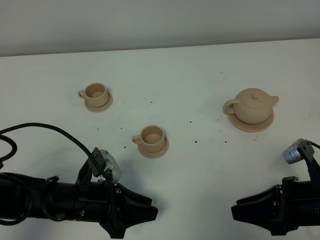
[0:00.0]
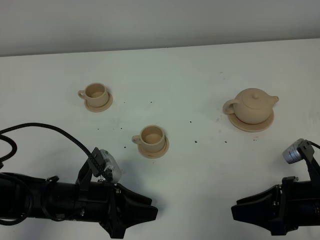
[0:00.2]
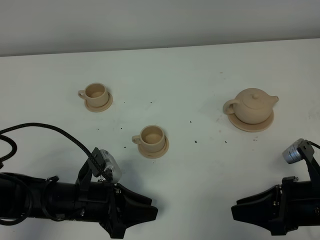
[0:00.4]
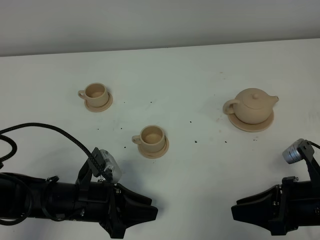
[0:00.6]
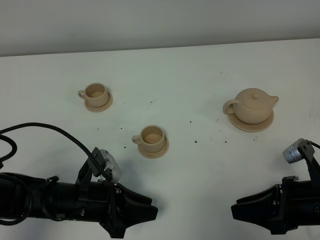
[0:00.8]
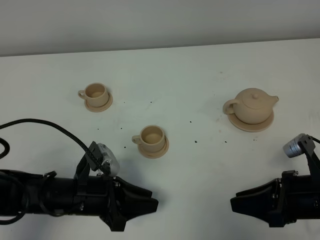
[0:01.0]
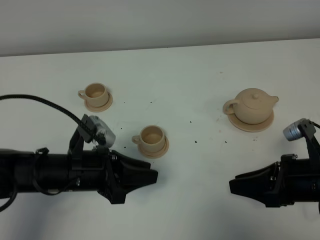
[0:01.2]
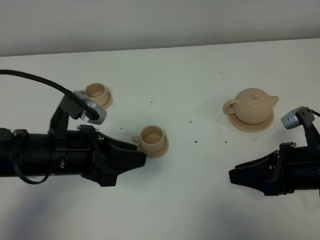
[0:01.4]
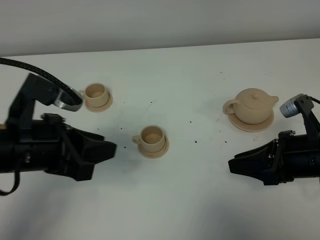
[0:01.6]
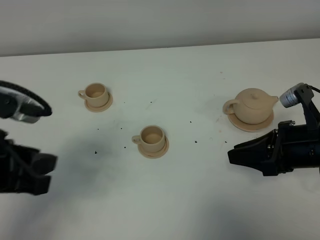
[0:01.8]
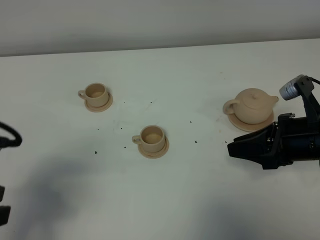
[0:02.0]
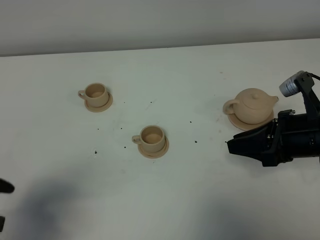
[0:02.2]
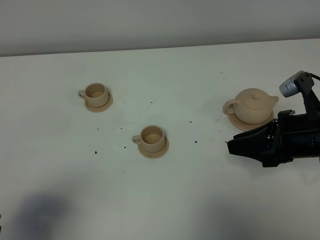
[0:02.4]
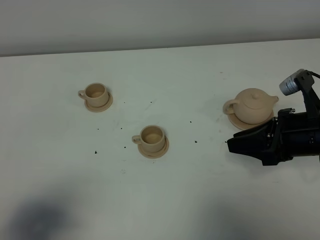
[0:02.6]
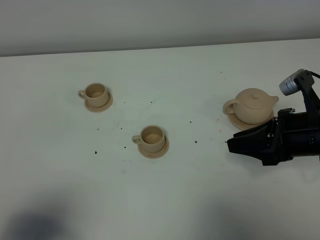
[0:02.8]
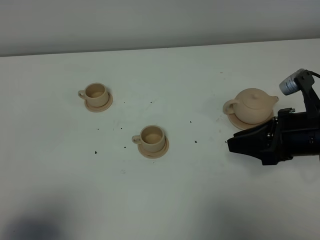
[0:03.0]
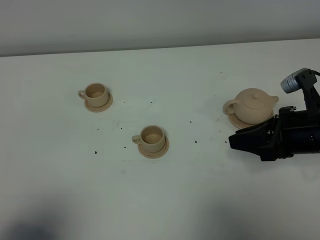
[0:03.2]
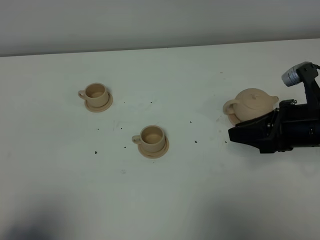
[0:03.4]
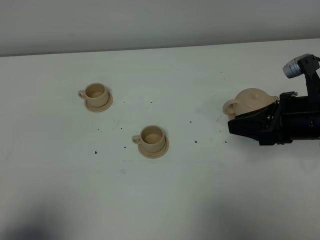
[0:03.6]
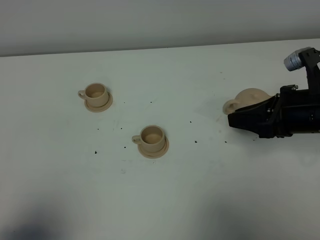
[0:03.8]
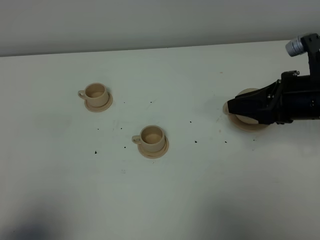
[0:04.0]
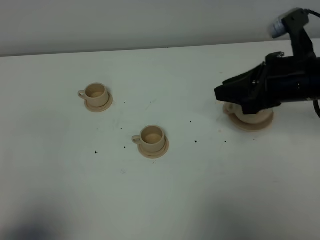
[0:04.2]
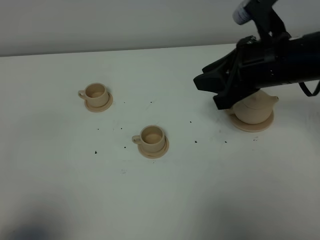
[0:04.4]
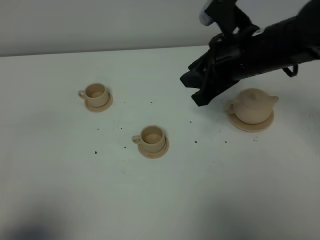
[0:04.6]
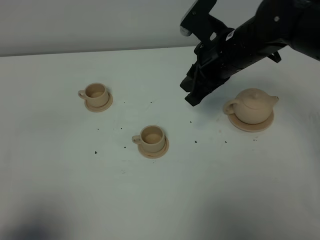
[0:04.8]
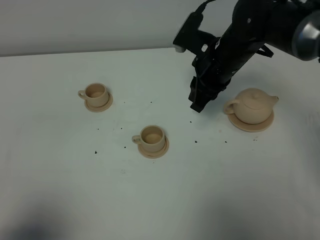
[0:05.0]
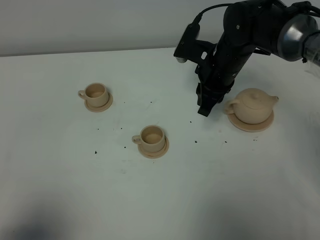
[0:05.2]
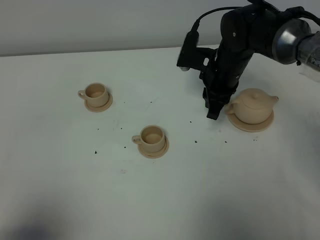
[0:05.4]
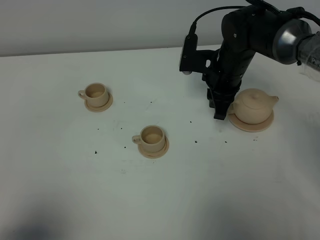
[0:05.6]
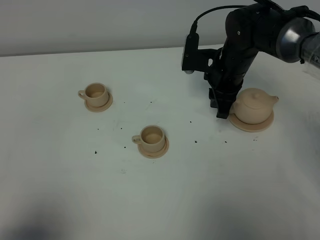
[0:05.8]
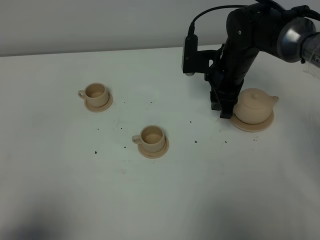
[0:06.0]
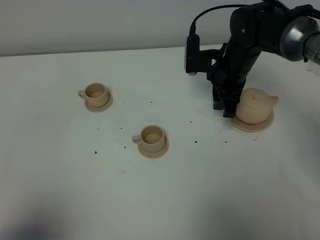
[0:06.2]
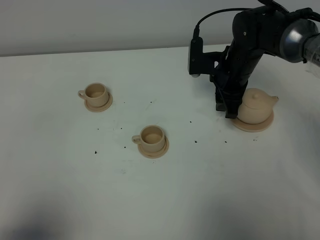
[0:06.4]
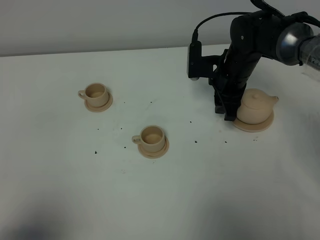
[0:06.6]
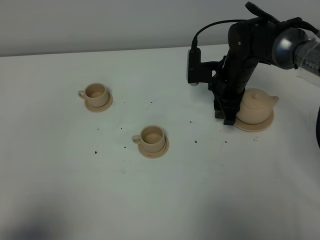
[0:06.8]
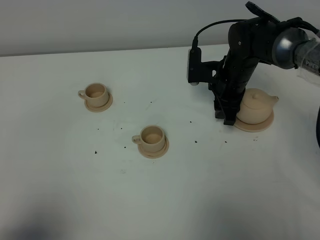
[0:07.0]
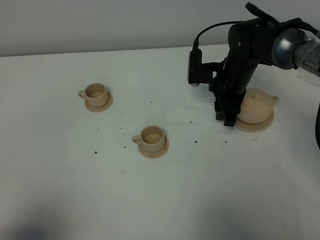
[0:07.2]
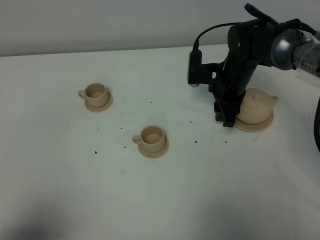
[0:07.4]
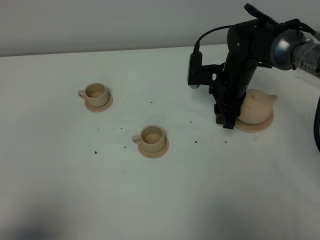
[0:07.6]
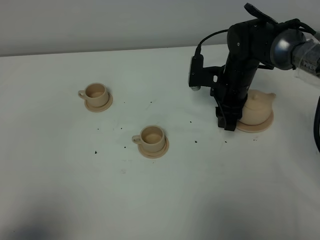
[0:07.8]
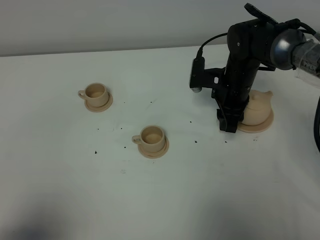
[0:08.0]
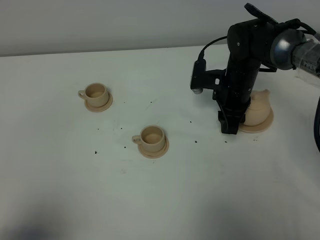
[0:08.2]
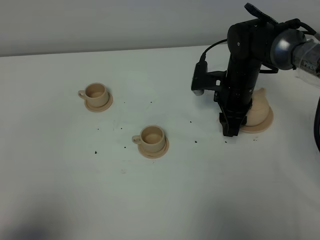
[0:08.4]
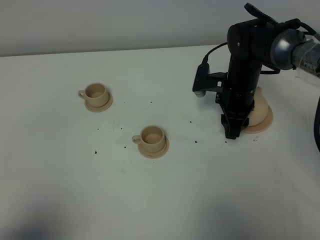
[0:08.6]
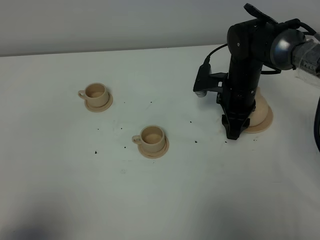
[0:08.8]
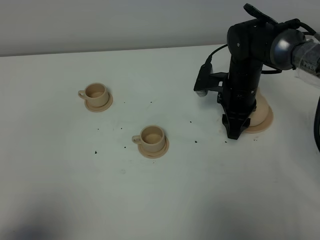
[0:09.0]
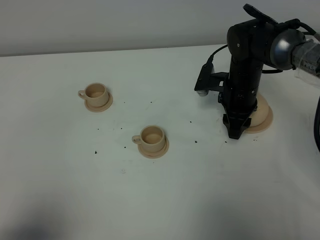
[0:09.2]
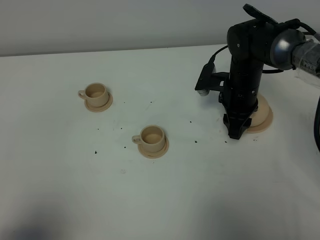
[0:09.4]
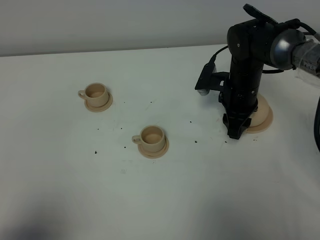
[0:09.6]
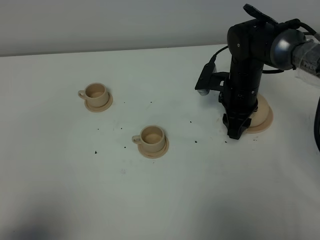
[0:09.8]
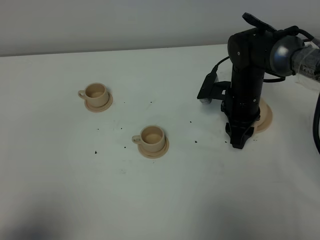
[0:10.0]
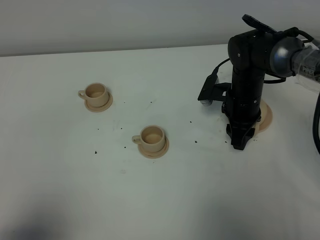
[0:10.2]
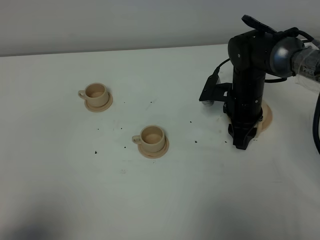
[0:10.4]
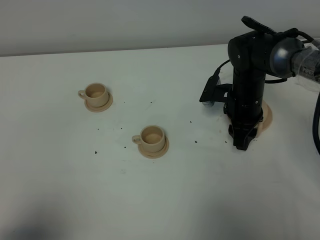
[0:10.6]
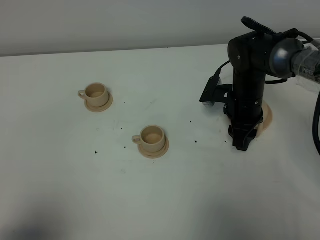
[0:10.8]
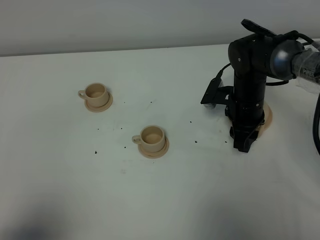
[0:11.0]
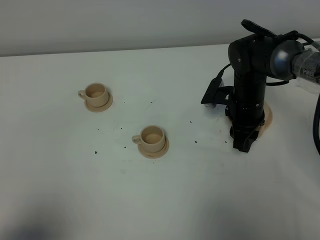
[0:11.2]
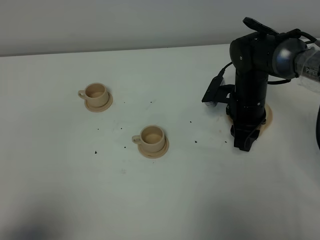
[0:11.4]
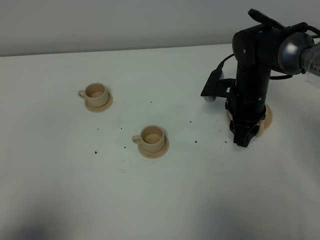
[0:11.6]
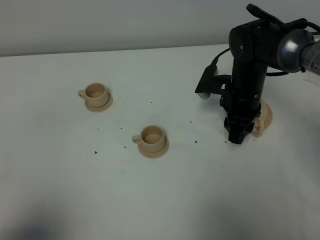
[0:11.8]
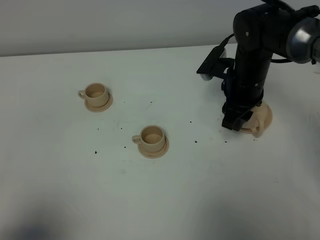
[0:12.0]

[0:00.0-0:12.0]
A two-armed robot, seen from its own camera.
Task of the whole recording: grasp the brown teapot and pour the tea into the two brown teacups one by one, put the brown teapot back in its original place.
0:00.0 to 0:01.6: The left gripper moves upward, some 20 cm, while the right gripper moves forward, approximately 5 cm.
0:01.6 to 0:03.0: The left gripper shifts roughly 20 cm backward and to the left.
0:03.0 to 0:04.4: The right gripper moves upward and to the left, approximately 10 cm.
0:04.4 to 0:06.0: The right gripper goes about 15 cm forward and downward, and opens.
0:06.0 to 0:07.6: There are only small adjustments of the grippers.
0:07.6 to 0:09.0: The grippers move only a little.
0:09.0 to 0:10.4: The grippers stay close to where they were, moving slightly.
0:10.4 to 0:12.0: The right gripper shifts some 5 cm upward.

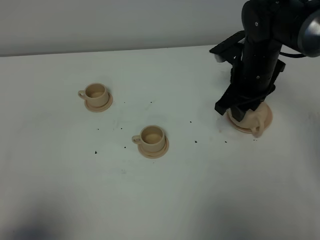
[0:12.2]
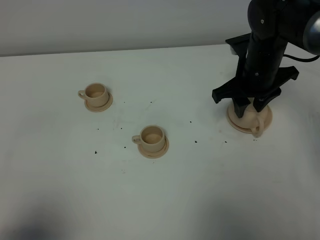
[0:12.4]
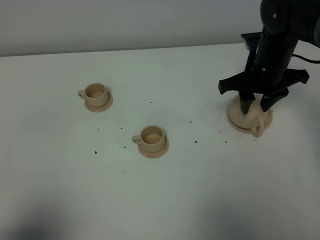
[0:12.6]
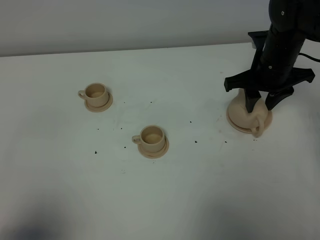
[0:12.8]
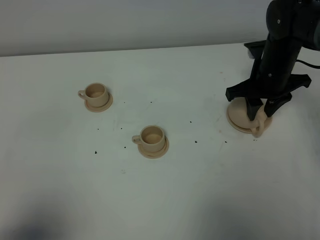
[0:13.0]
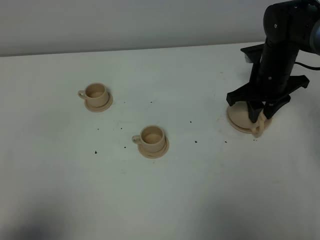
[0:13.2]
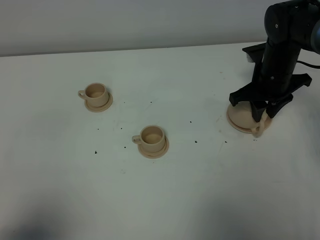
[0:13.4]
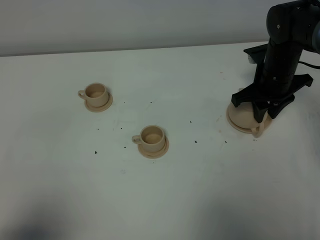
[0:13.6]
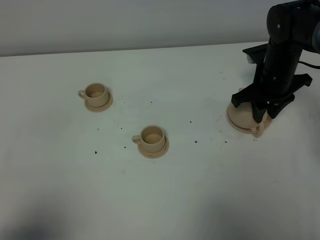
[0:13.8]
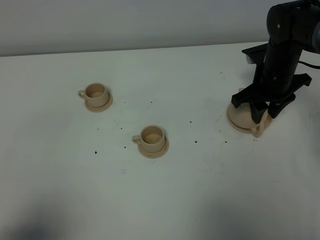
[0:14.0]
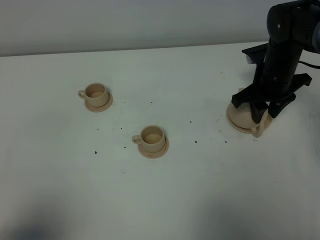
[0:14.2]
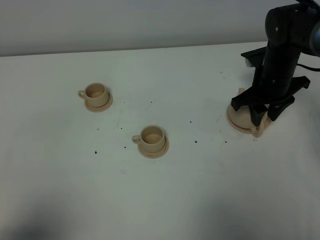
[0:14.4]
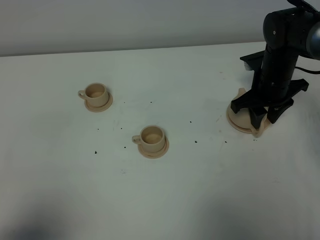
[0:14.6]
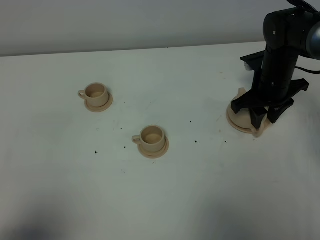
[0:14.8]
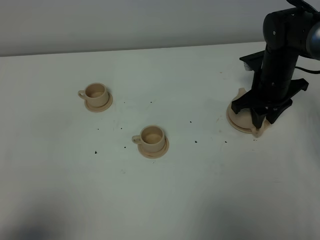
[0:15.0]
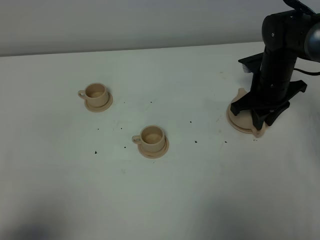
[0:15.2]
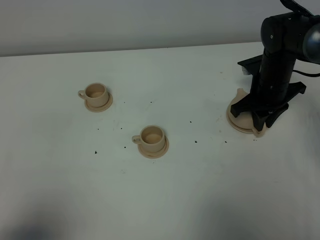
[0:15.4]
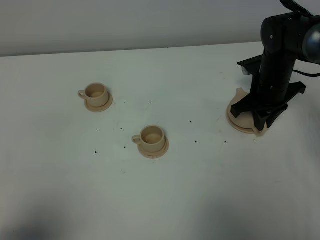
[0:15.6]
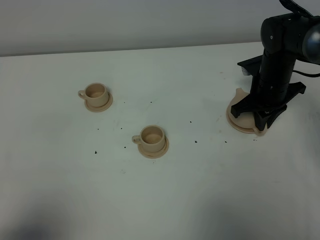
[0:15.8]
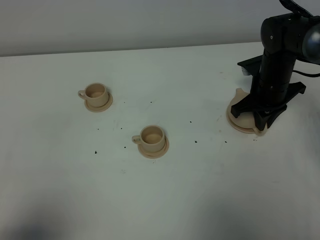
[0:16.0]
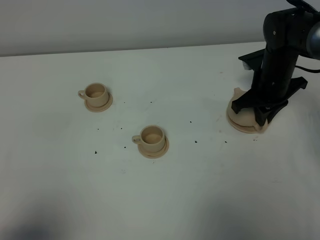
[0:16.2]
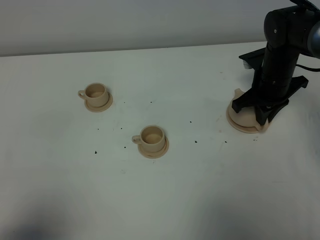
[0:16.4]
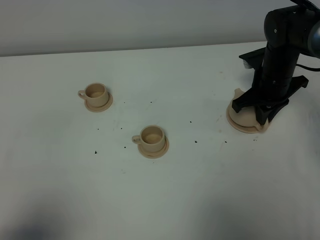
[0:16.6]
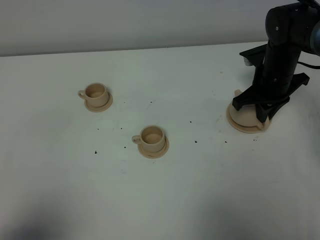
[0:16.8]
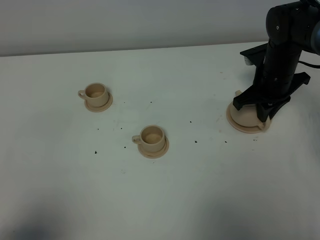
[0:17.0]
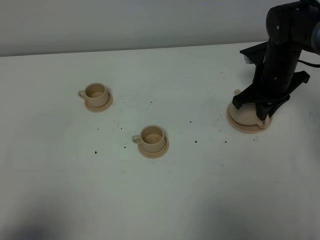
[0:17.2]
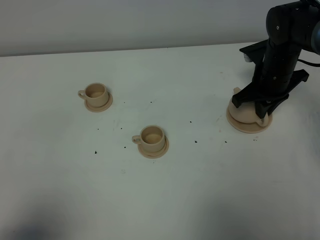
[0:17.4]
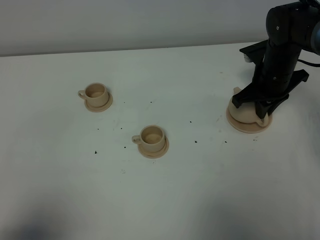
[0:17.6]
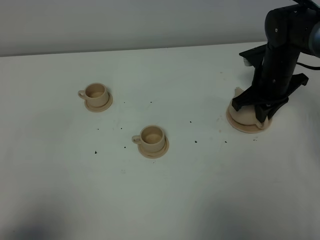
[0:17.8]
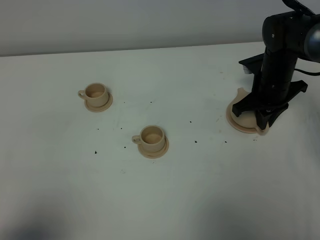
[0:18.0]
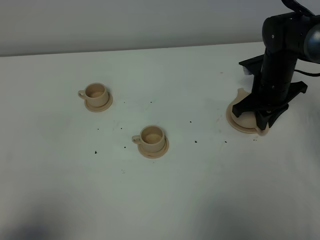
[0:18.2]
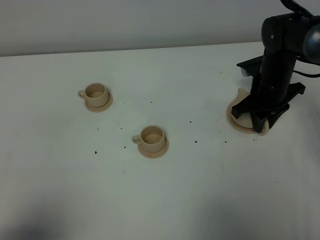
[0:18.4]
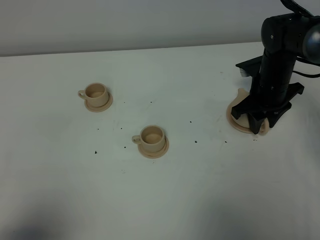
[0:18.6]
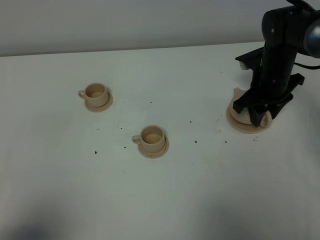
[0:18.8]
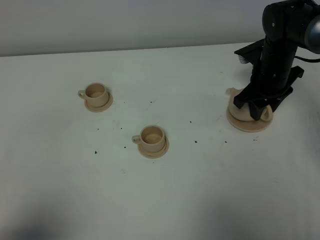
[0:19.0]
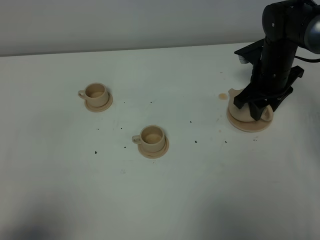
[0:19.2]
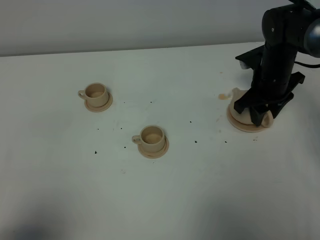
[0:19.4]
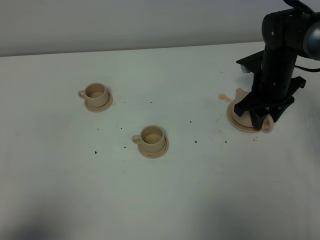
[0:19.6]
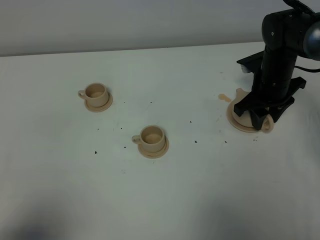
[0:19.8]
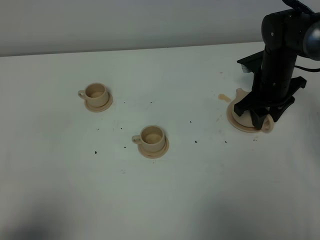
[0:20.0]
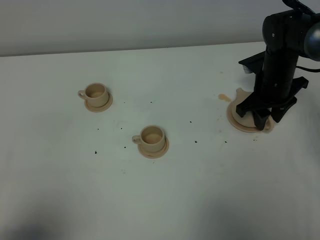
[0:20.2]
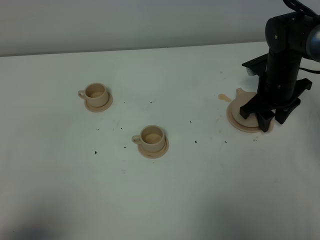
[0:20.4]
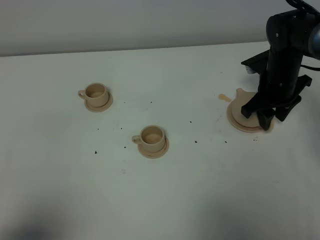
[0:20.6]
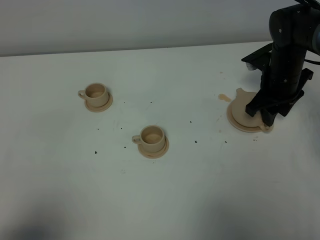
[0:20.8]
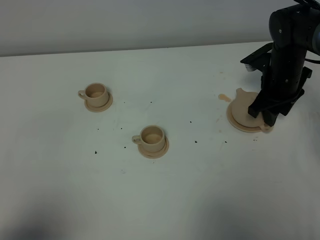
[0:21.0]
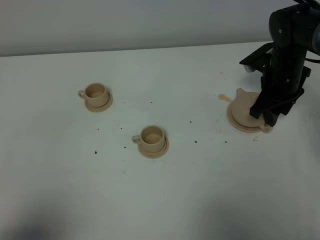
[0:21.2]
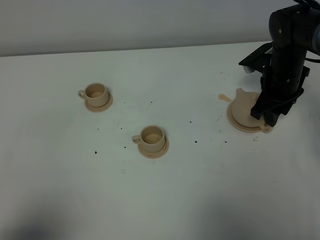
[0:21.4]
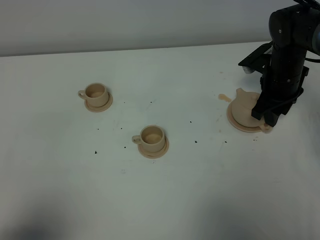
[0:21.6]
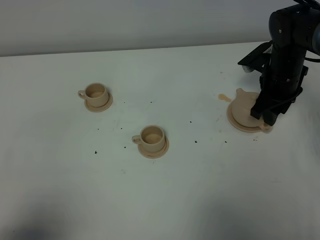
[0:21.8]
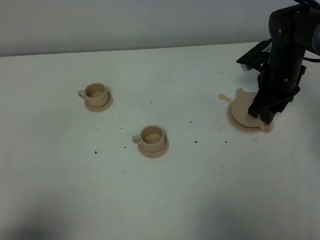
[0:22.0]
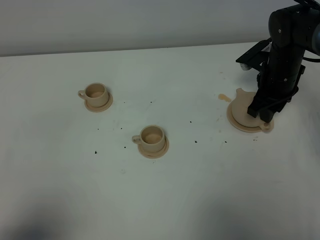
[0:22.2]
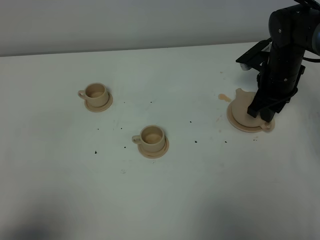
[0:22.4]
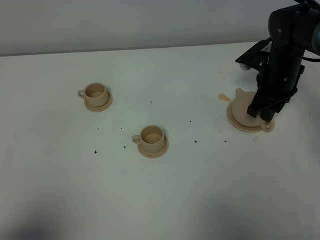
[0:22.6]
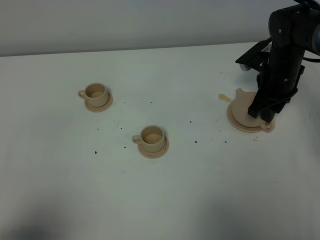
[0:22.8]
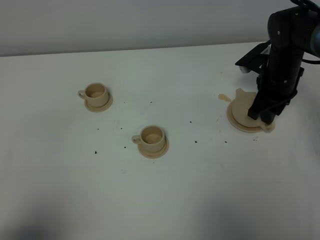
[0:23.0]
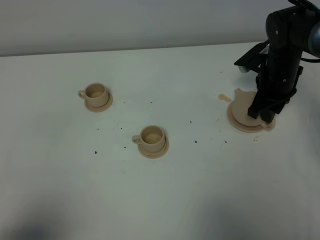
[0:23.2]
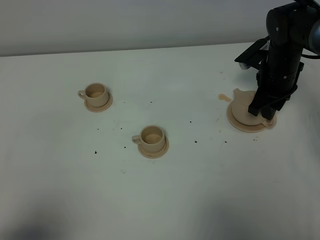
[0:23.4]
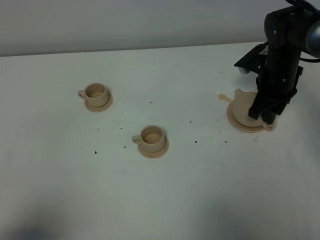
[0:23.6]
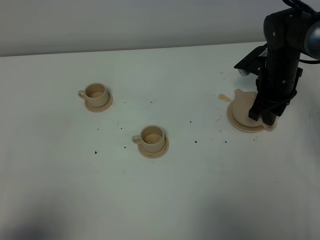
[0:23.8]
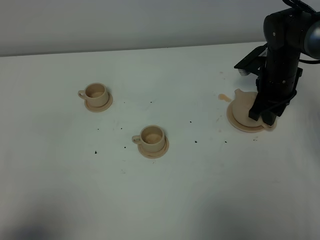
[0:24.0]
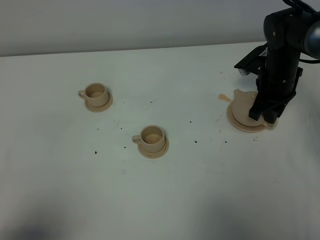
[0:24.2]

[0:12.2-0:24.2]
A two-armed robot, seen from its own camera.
Task of the whole recording: grasp the brown teapot and pour the tea into the two brown teacups one by one, put the brown teapot back in its original place.
0:12.2 to 0:13.8: The right gripper changes place by about 5 cm.
0:13.8 to 0:15.2: The grippers stay close to where they were, moving slightly.
0:15.2 to 0:16.6: The right gripper closes its fingers.
0:16.6 to 0:18.2: The grippers move only a little.
0:18.2 to 0:19.8: The right gripper opens up.
0:19.8 to 0:21.2: There are only small adjustments of the grippers.
0:21.2 to 0:22.6: Neither gripper changes place.
0:22.6 to 0:24.2: The right gripper closes its fingers.
